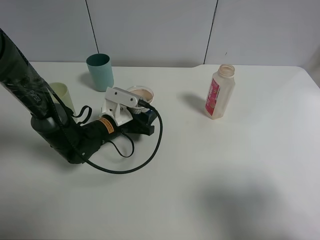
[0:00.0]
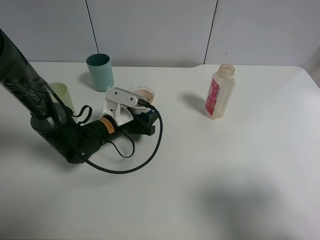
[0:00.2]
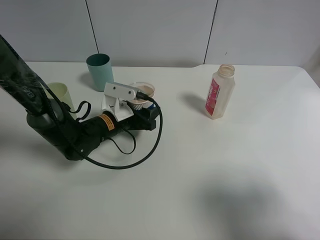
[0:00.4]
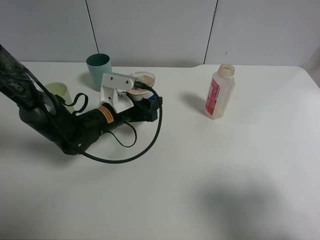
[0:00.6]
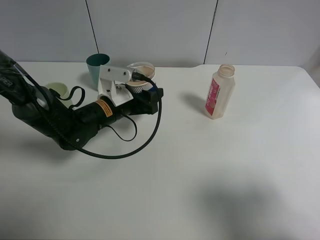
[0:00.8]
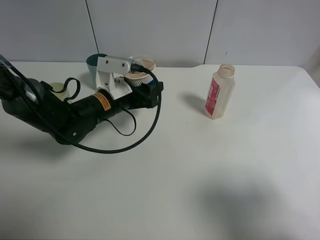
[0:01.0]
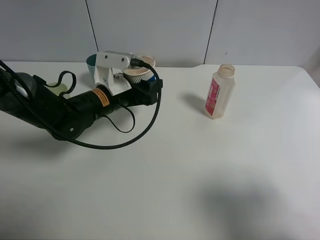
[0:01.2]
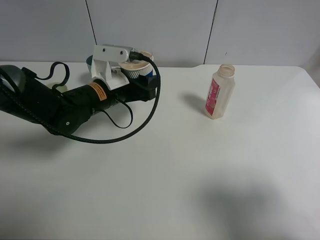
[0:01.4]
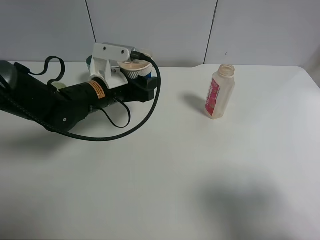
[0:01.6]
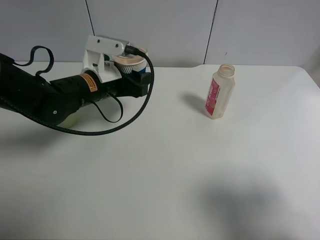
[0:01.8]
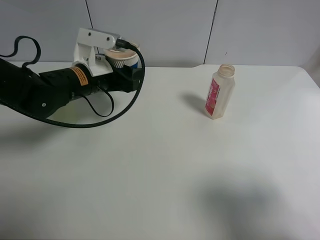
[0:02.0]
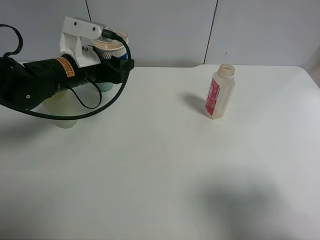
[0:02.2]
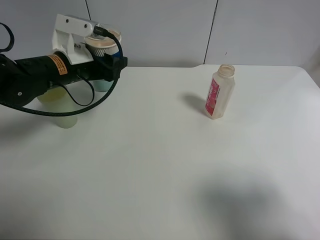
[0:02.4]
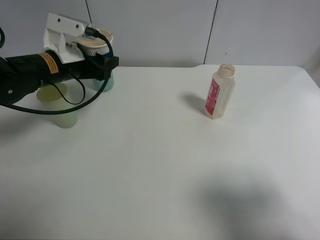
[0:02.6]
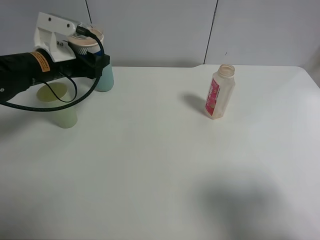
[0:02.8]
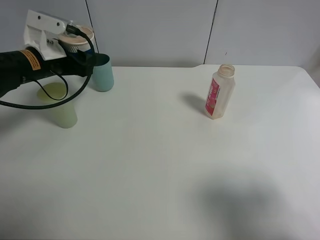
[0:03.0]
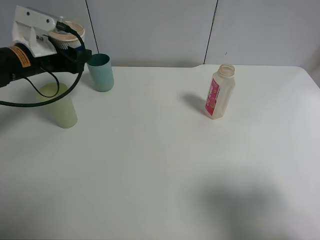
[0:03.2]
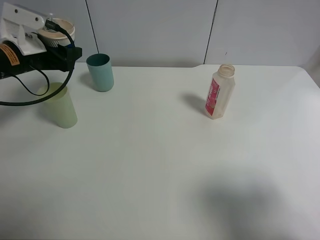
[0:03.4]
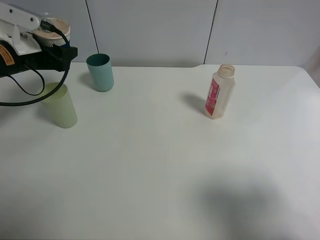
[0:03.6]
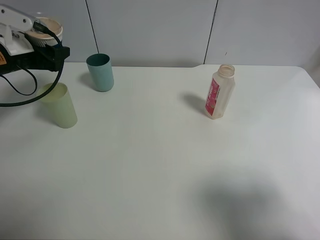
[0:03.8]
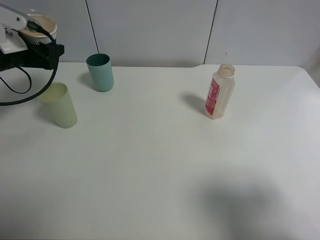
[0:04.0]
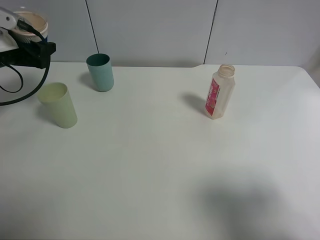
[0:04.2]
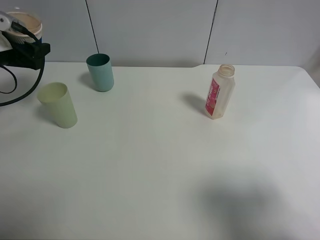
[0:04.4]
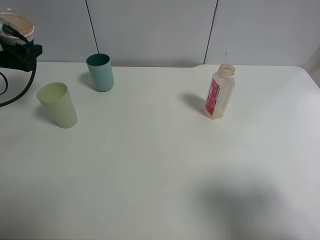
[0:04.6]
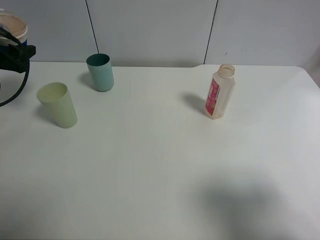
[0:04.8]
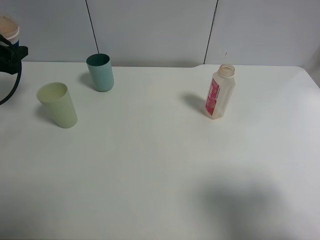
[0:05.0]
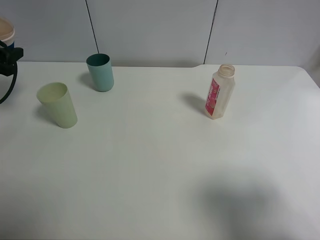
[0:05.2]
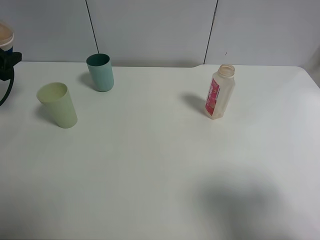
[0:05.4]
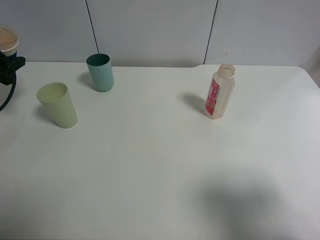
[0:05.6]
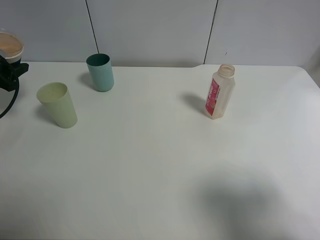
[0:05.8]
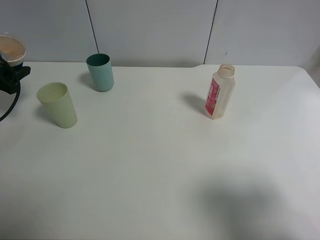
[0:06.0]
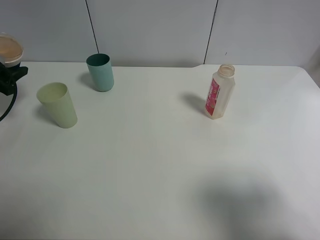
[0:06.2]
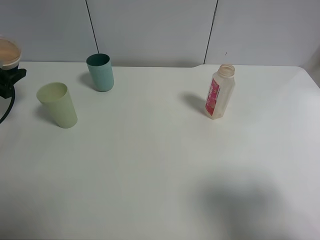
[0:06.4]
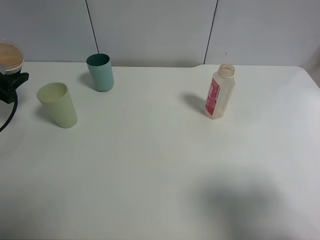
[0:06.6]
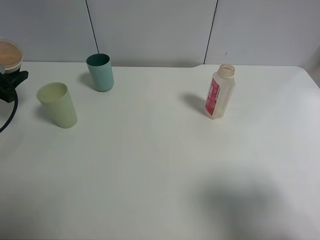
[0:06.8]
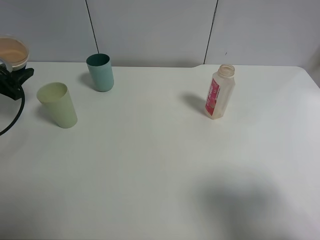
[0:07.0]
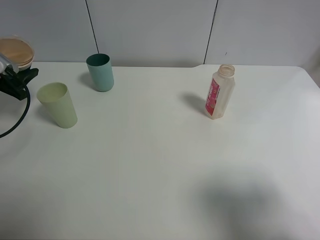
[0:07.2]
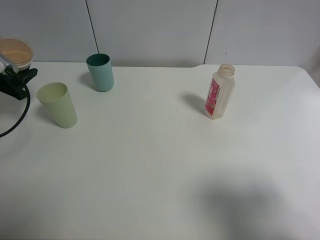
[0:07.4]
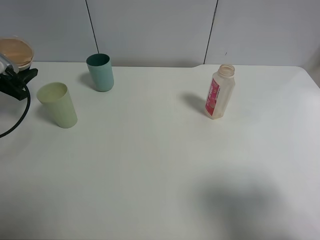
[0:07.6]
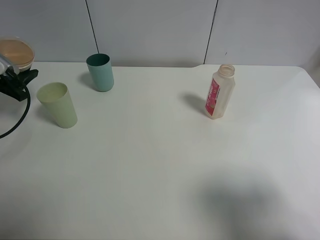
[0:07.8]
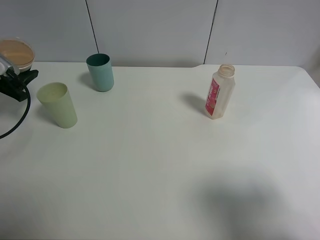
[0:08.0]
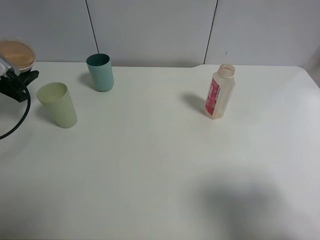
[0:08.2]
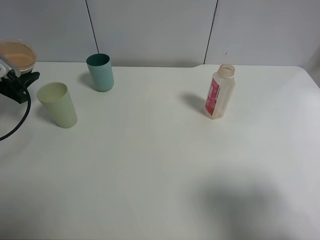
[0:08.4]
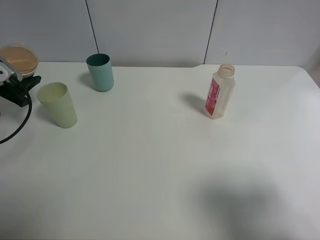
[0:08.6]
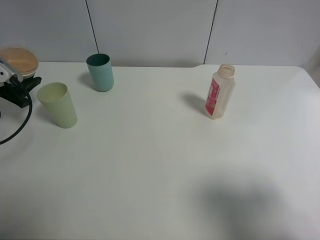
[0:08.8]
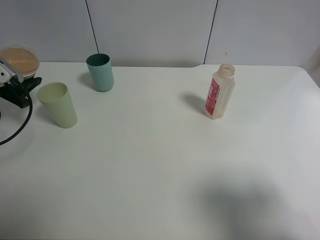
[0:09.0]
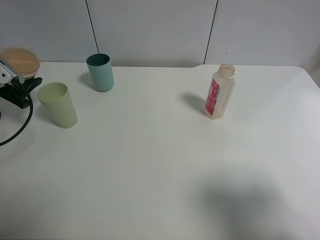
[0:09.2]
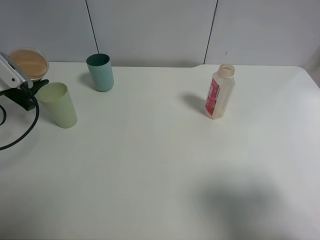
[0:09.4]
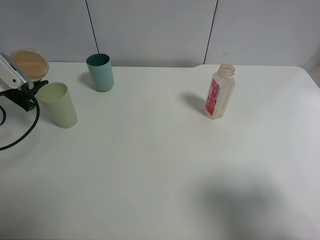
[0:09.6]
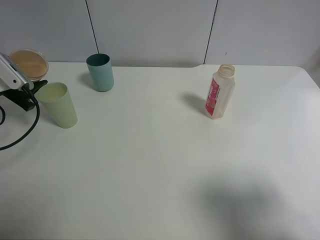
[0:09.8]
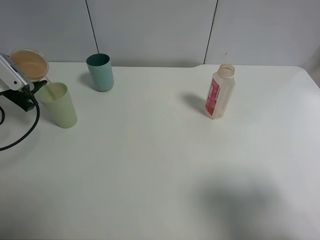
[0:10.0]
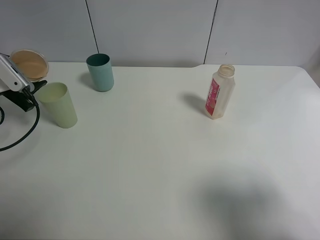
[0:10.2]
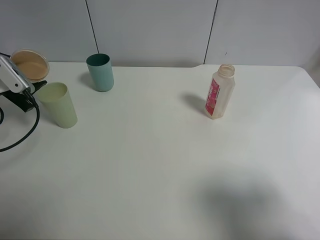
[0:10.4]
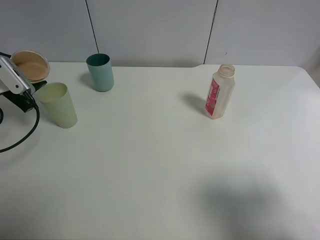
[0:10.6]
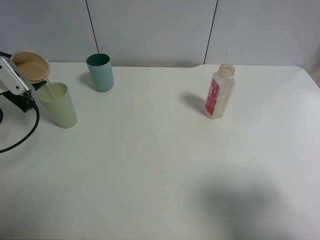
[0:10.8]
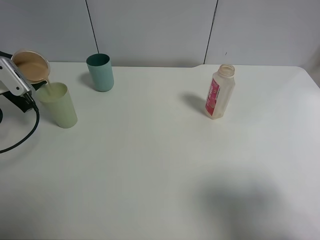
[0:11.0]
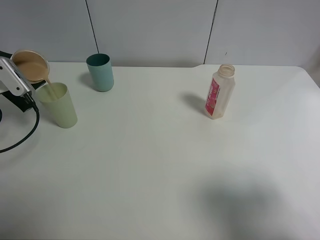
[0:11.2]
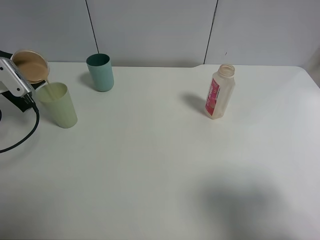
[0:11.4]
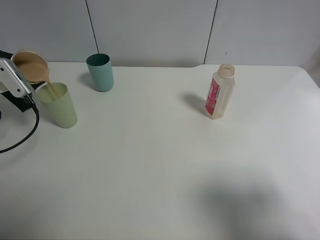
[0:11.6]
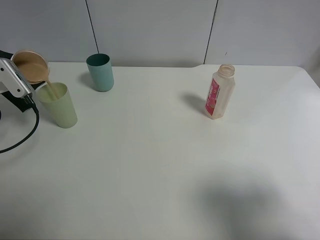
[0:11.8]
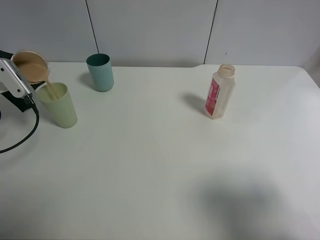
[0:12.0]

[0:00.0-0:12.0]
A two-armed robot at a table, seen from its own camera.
Task of the whole recording: use a clamp to hold the bottle of the drink, pour the beverage into a random cup, then clamp the cup containing the drink and pour the drink into another random cup.
0:00.0 to 0:01.6: The left gripper travels upward by approximately 10 cm.
0:01.6 to 0:03.0: The left gripper shifts some 10 cm to the left.
0:03.0 to 0:04.4: The left gripper moves to the left, some 10 cm.
0:04.4 to 0:06.0: The left gripper moves to the left, roughly 5 cm.
0:06.0 to 0:07.6: The grippers stay close to where they were, moving slightly.
0:07.6 to 0:09.0: Both grippers stay about where they are.
0:09.0 to 0:10.4: The grippers move only a little.
0:10.4 to 0:12.0: The grippers make only small movements.

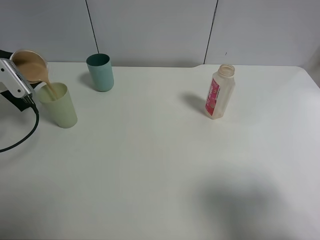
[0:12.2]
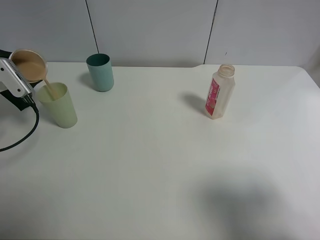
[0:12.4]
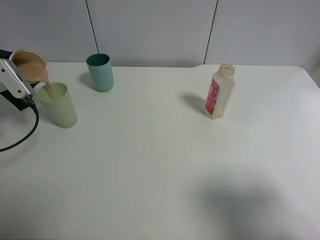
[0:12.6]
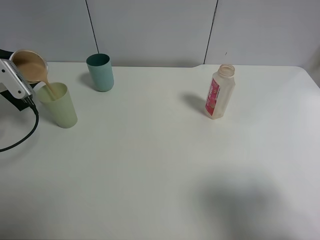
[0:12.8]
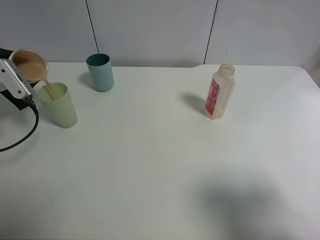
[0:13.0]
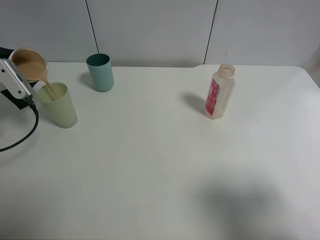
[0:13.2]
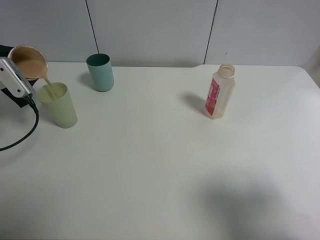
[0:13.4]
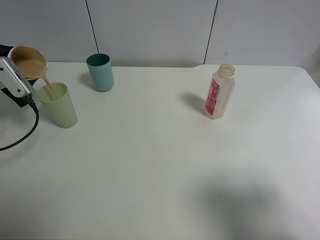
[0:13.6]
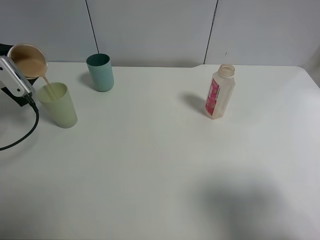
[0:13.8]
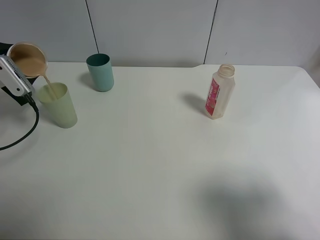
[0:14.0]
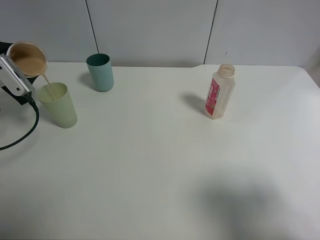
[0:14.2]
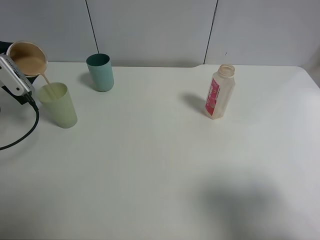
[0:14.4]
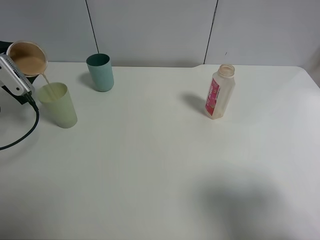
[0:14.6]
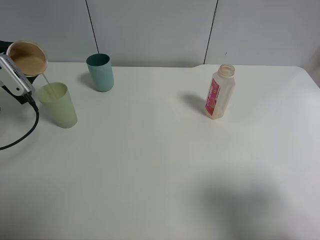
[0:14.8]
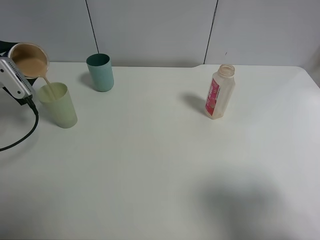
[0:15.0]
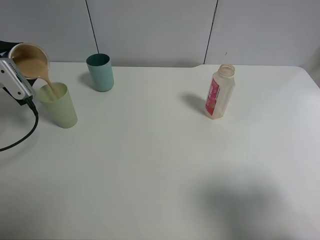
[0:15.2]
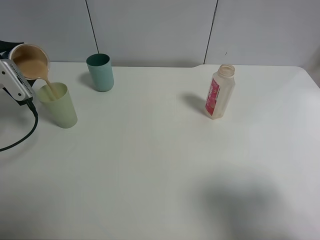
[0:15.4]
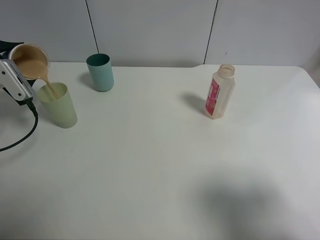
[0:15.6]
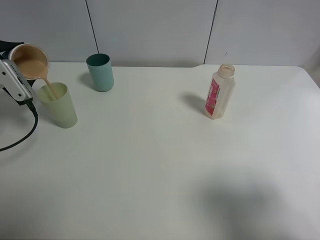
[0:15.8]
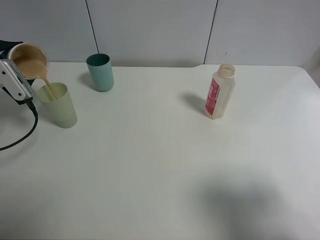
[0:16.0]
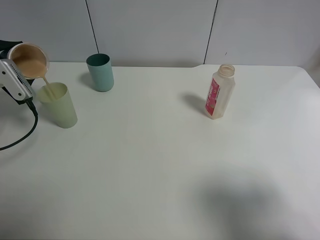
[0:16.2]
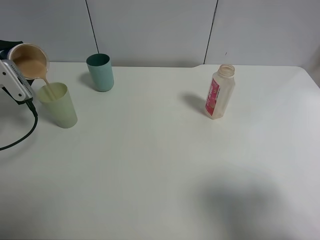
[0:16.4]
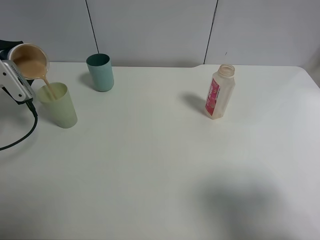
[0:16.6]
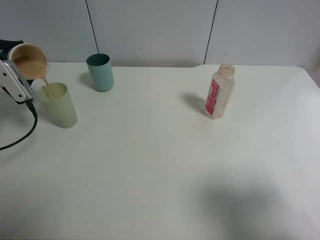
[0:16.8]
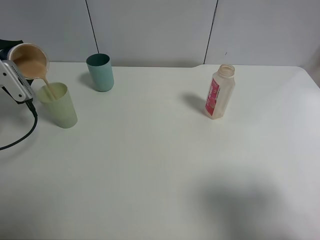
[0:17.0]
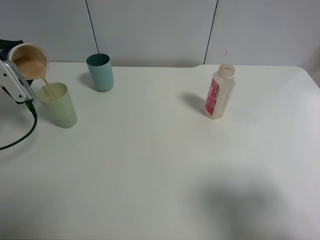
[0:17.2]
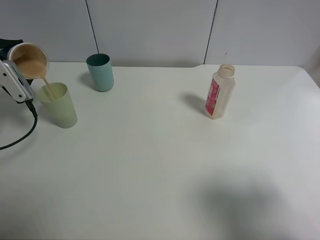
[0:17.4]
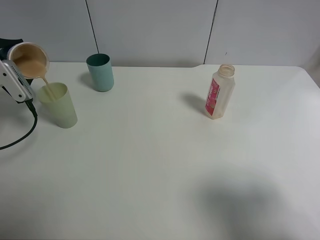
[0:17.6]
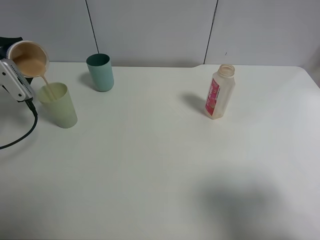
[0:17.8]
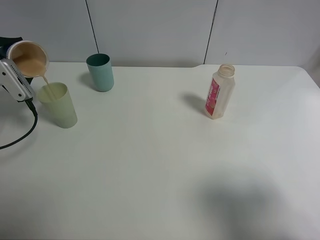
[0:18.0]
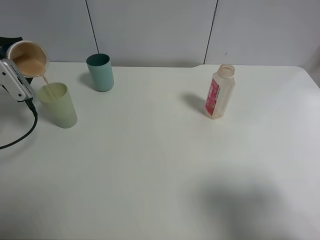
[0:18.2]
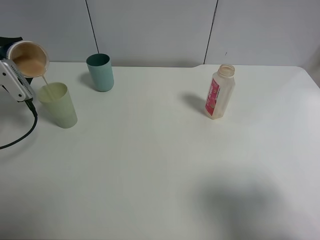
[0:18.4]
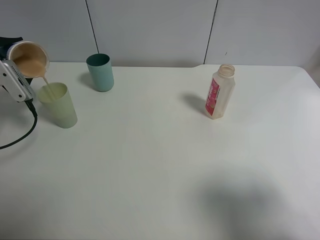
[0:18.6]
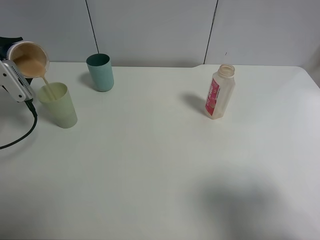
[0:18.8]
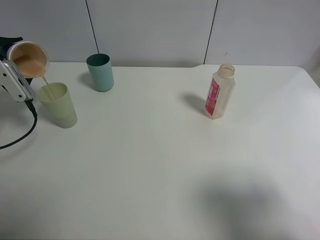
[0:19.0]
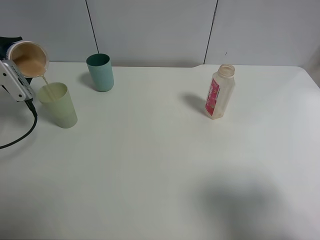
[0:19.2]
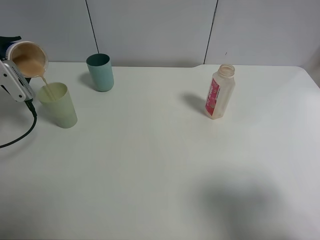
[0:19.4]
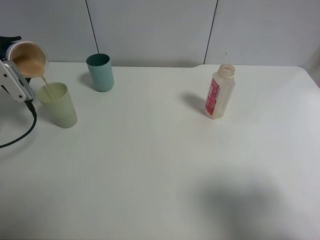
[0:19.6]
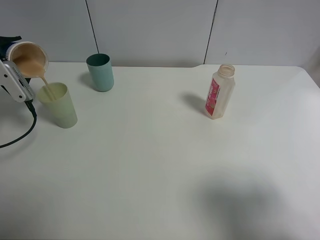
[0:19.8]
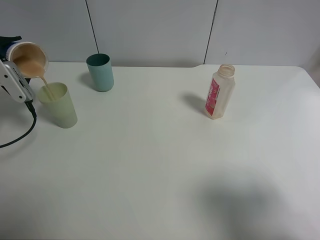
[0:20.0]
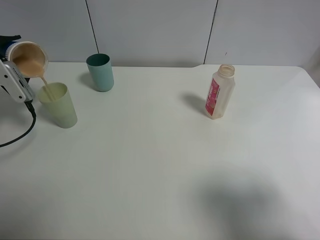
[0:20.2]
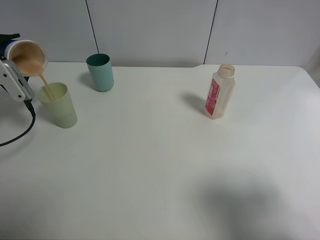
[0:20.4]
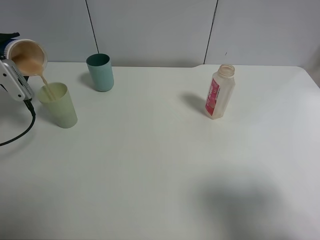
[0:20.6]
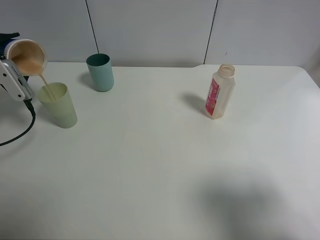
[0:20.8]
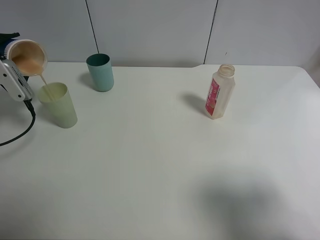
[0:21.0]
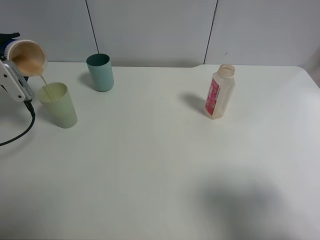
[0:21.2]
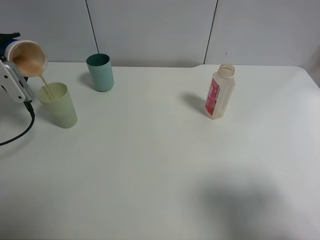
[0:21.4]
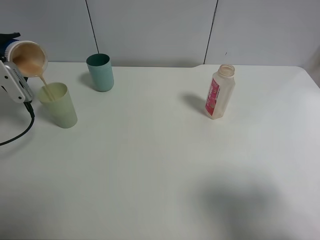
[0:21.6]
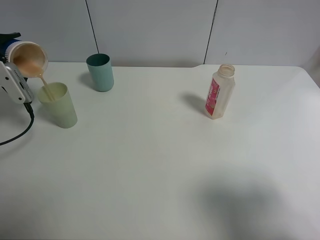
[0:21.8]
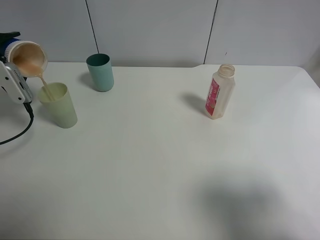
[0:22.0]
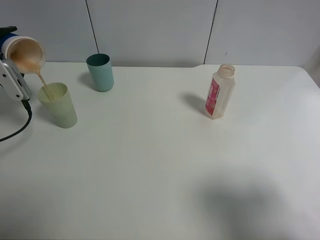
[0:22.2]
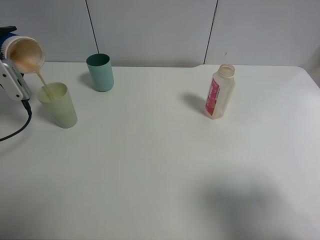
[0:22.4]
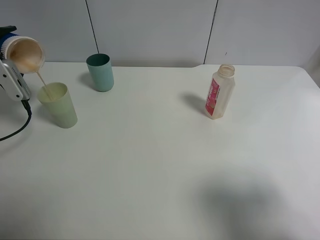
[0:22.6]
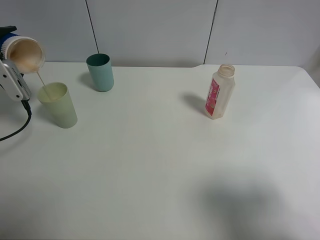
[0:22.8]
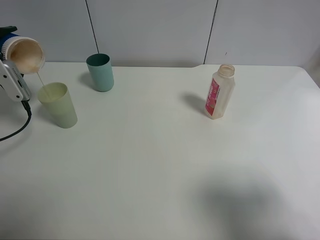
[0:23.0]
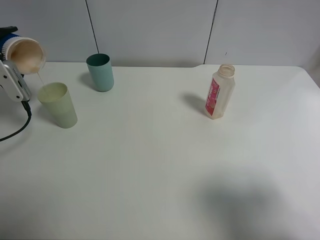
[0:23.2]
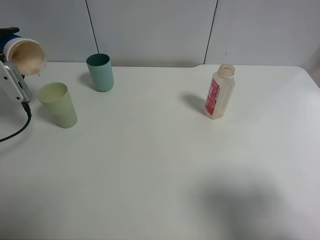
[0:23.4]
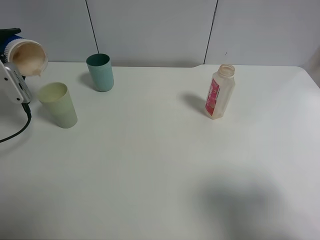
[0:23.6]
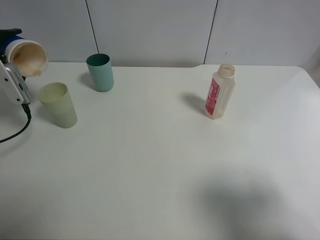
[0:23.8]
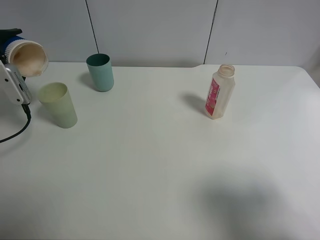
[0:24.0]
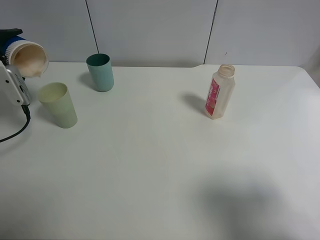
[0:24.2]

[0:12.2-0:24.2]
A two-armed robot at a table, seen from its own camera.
Task of the whole recording: use a clamp to hold the bottle of the drink, pour the beverage into a random cup, then clamp the cup containing the drink and pour the drink into another random cup.
0:12.2 to 0:15.2: The grippers make only small movements.
0:15.2 to 0:16.6: Both grippers stay about where they are.
0:16.6 to 0:18.2: Both grippers stay put.
0:18.2 to 0:19.8: Neither gripper changes place.
0:19.8 to 0:21.2: Neither gripper changes place.
0:21.2 to 0:22.6: The grippers stay close to where they were, moving slightly.
0:22.6 to 0:24.2: Both grippers stay about where they are.
